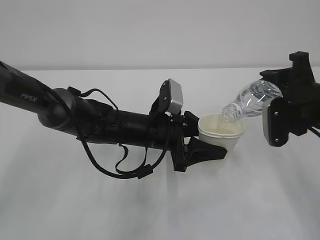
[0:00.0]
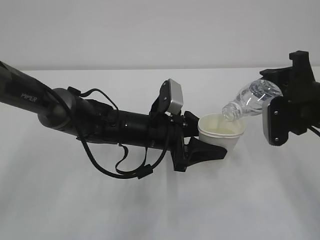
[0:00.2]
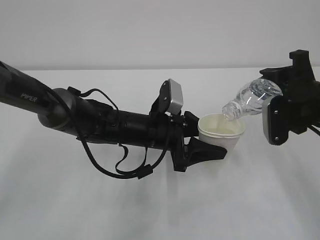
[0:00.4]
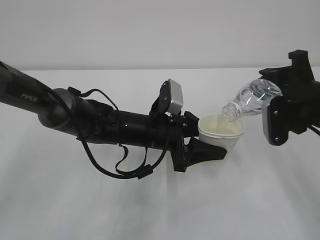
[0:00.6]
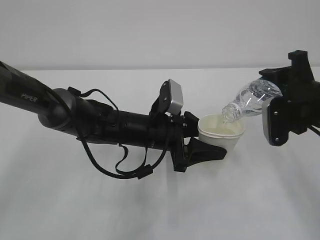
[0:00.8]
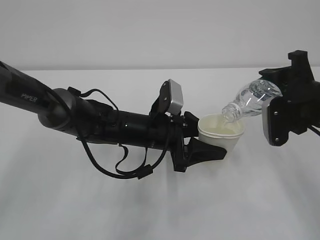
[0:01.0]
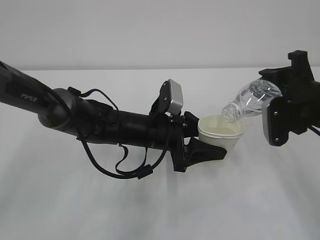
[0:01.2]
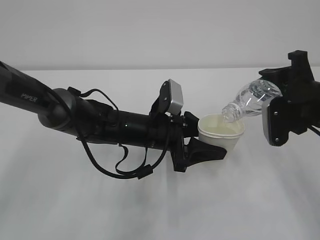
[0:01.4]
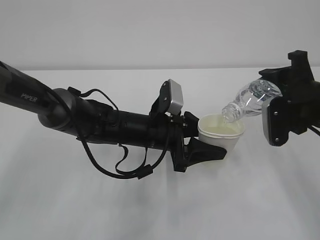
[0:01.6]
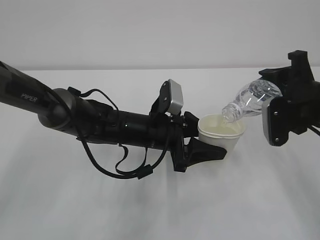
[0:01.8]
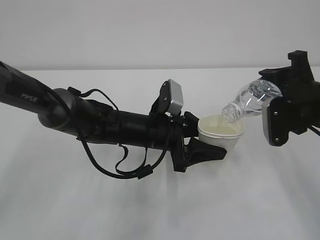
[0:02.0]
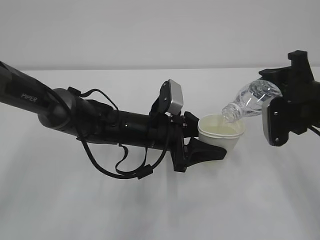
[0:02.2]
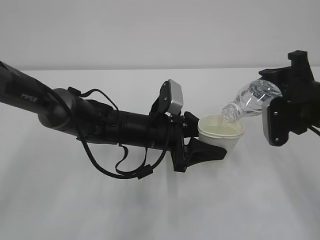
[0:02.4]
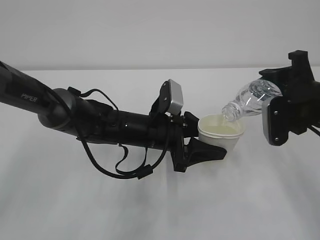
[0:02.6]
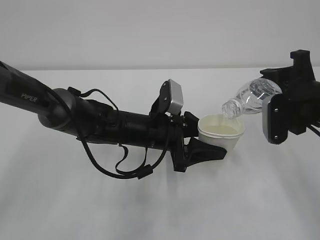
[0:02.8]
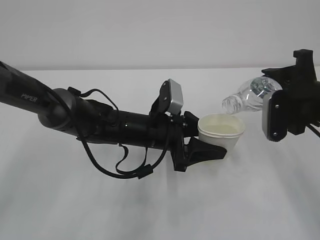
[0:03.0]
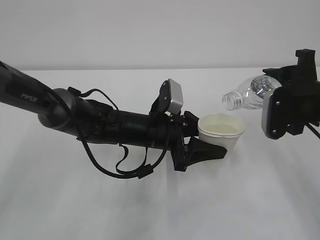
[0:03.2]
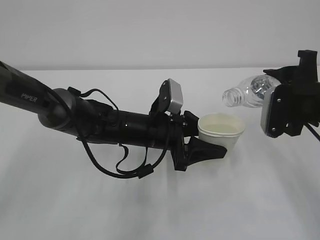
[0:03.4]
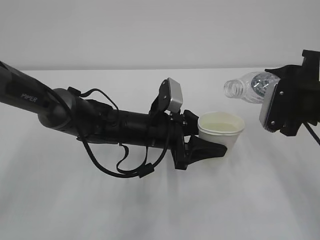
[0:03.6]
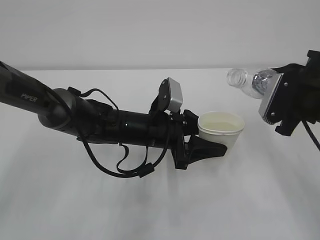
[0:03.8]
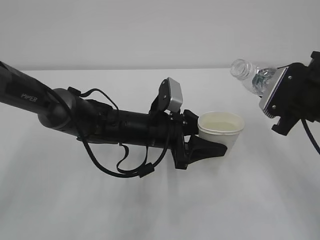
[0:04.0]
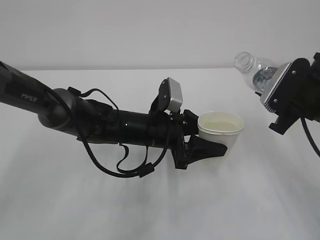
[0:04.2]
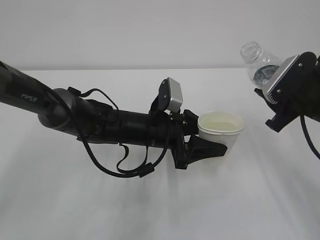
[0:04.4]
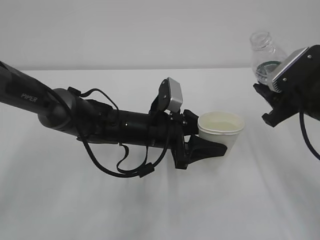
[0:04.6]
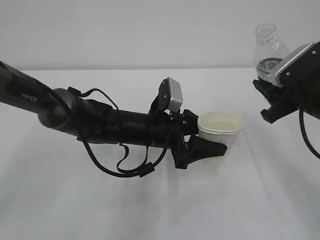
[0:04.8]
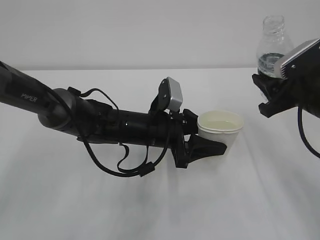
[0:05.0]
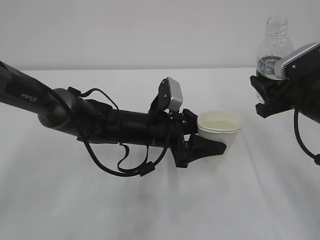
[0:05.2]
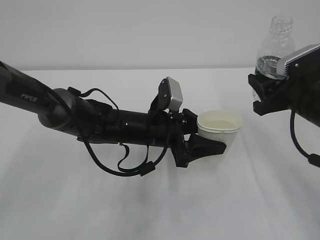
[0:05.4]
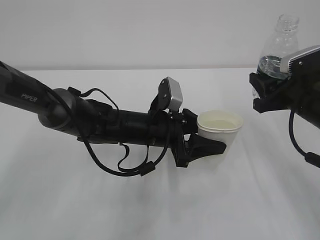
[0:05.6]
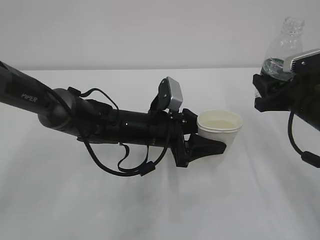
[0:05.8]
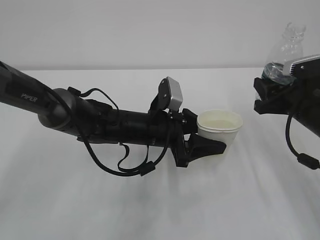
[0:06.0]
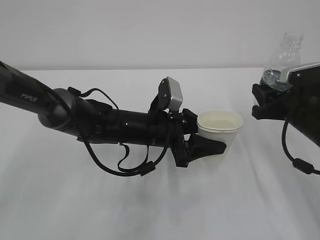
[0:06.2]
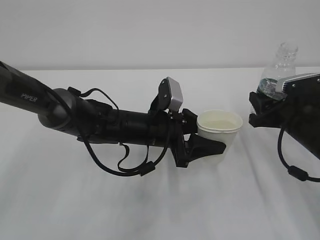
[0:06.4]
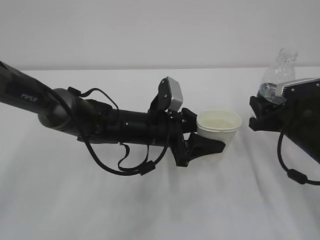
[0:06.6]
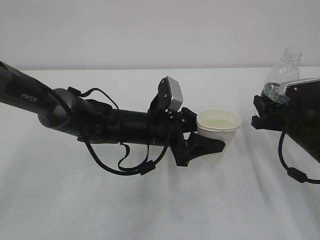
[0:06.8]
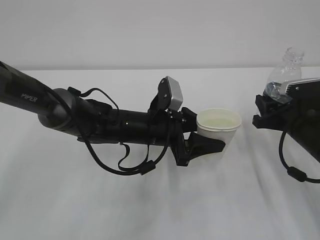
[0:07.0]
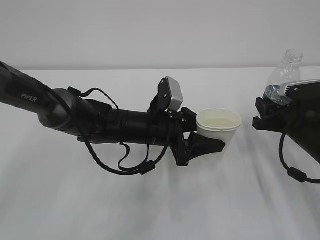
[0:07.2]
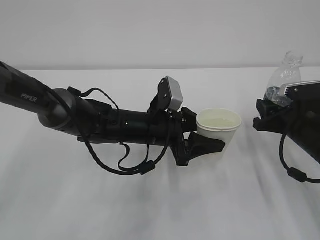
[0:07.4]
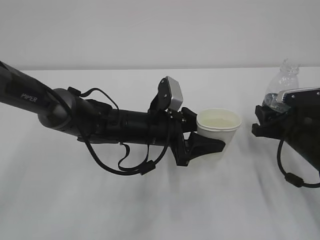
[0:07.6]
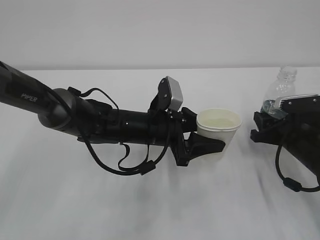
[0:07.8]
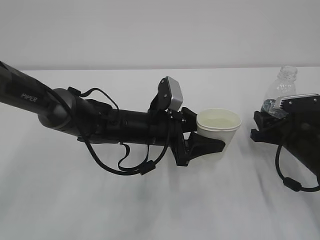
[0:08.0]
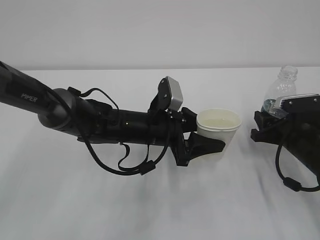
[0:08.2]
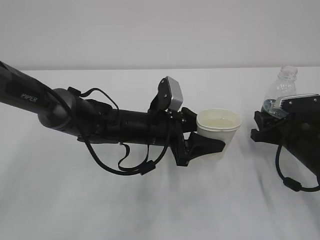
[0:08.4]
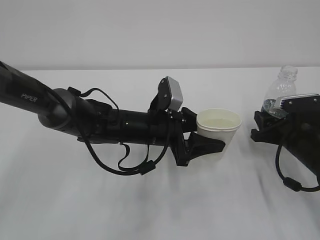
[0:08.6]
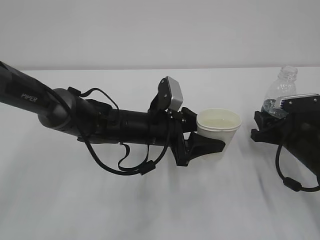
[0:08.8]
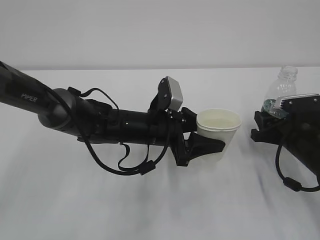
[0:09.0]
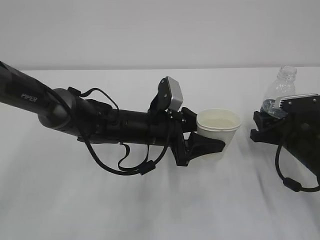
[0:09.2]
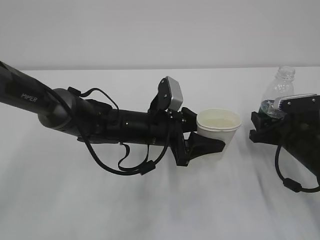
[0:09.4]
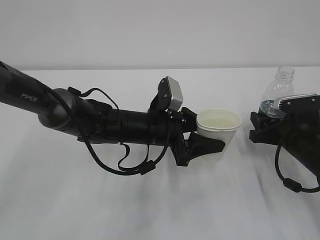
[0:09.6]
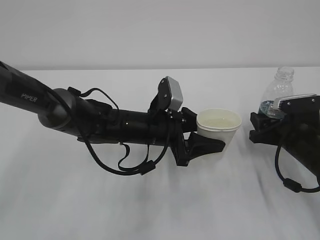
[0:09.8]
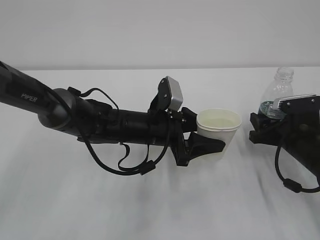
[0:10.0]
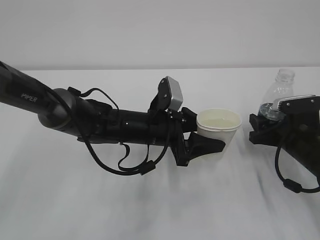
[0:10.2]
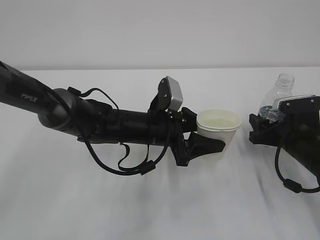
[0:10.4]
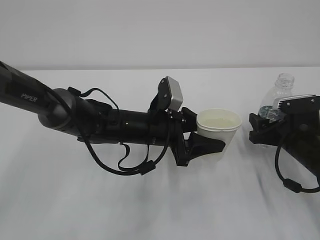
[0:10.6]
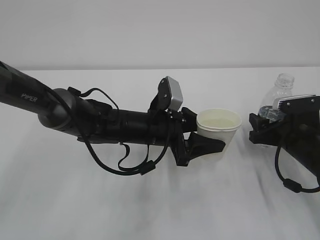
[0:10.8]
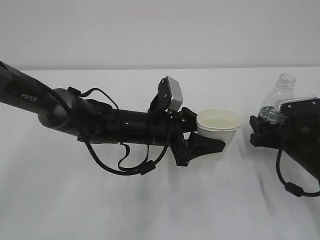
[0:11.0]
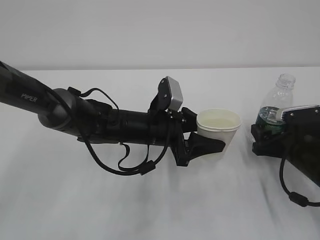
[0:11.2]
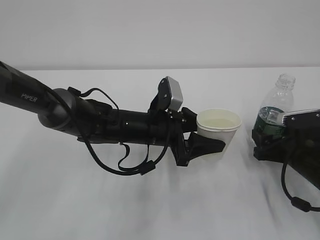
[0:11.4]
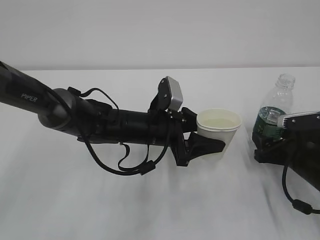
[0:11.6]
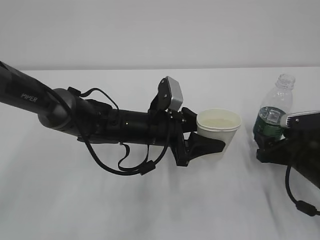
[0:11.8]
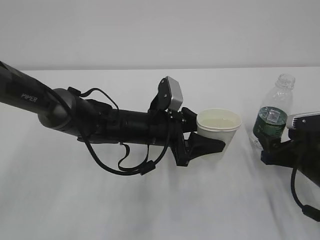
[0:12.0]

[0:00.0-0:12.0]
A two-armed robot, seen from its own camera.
0:00.0 to 0:01.6: Both grippers stay put.
0:01.6 to 0:03.0: The grippers make only small movements.
0:06.0 to 0:07.6: The right gripper shifts roughly 5 cm downward.
0:07.6 to 0:09.0: There are only small adjustments of the grippers.
0:09.0 to 0:10.4: The right gripper opens.
0:10.4 to 0:12.0: The grippers move only a little.

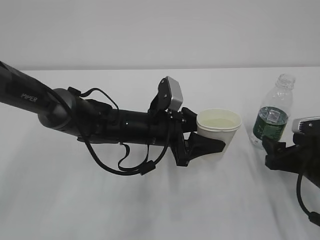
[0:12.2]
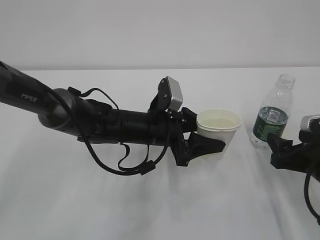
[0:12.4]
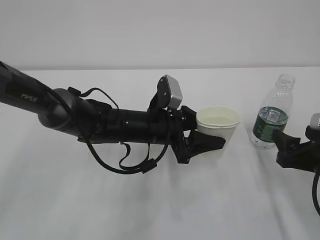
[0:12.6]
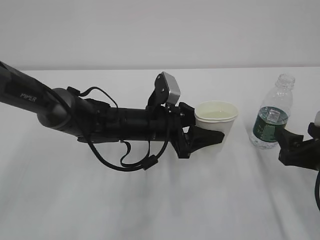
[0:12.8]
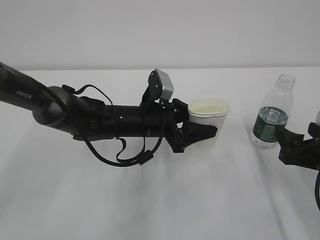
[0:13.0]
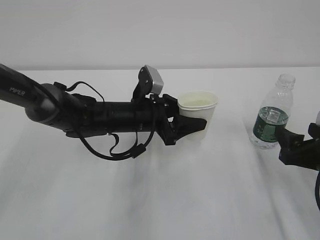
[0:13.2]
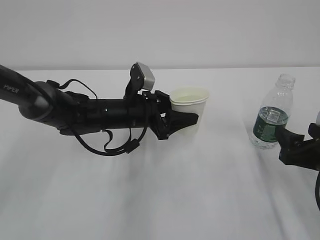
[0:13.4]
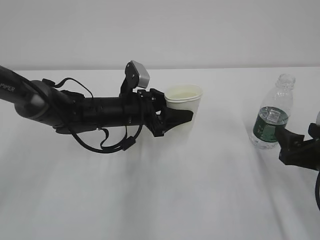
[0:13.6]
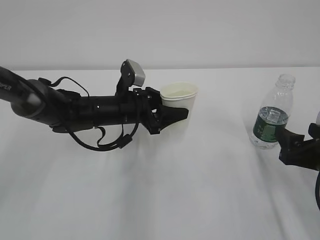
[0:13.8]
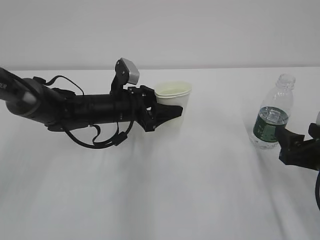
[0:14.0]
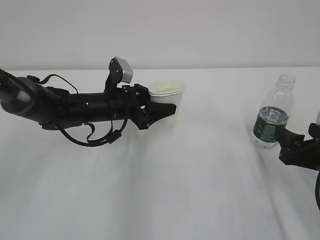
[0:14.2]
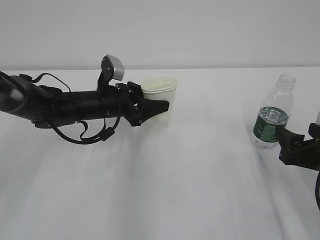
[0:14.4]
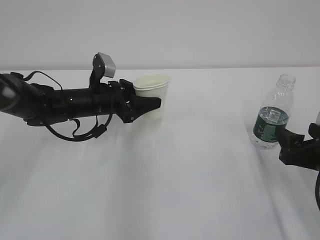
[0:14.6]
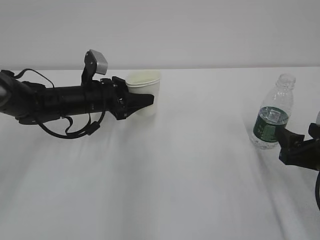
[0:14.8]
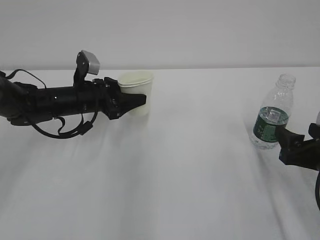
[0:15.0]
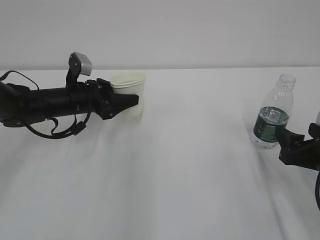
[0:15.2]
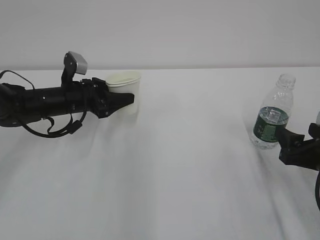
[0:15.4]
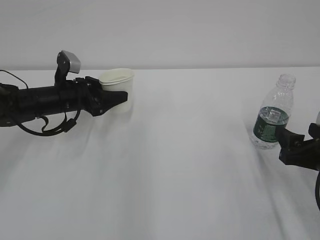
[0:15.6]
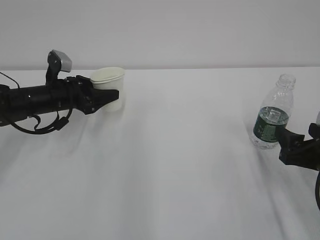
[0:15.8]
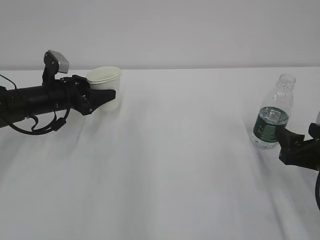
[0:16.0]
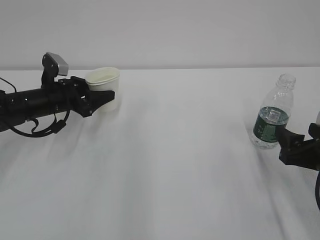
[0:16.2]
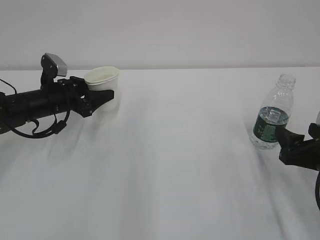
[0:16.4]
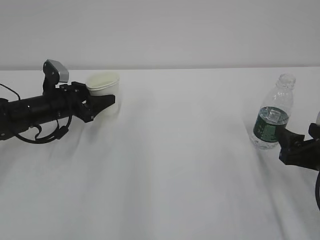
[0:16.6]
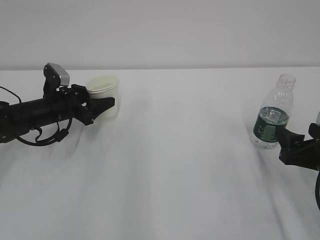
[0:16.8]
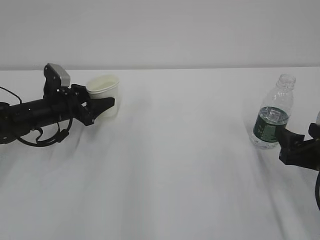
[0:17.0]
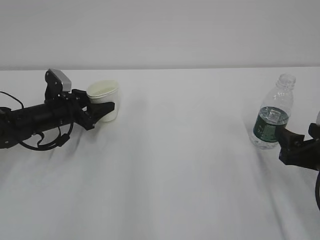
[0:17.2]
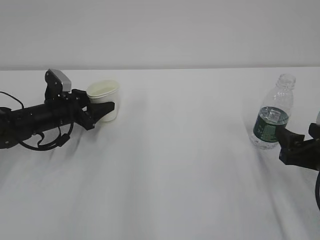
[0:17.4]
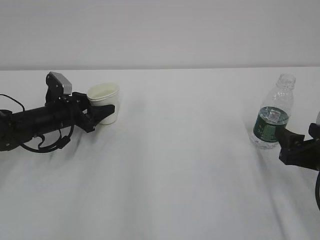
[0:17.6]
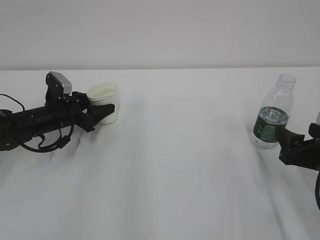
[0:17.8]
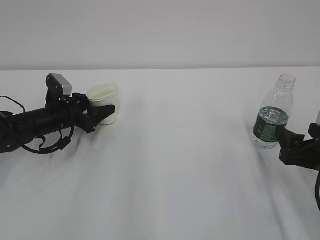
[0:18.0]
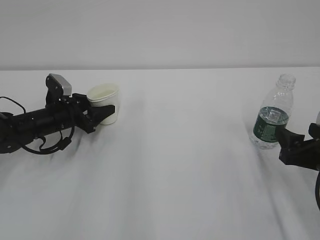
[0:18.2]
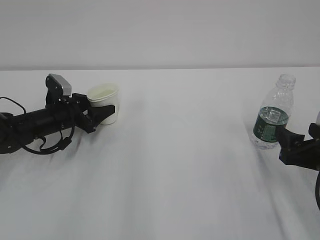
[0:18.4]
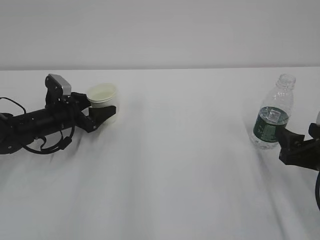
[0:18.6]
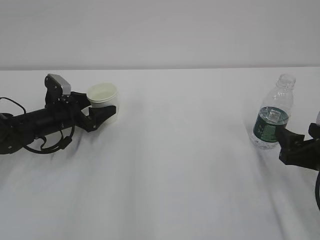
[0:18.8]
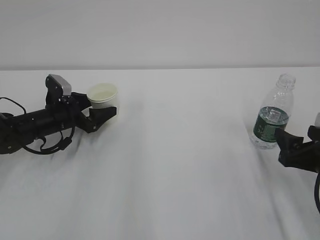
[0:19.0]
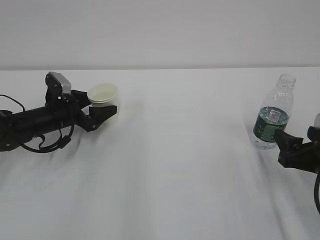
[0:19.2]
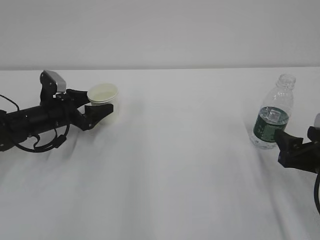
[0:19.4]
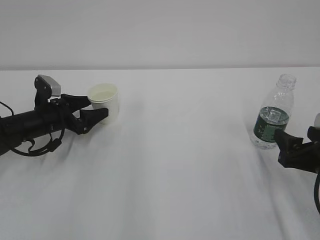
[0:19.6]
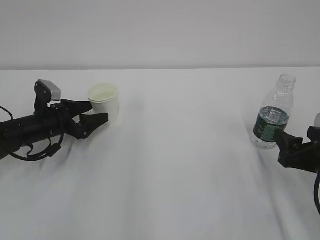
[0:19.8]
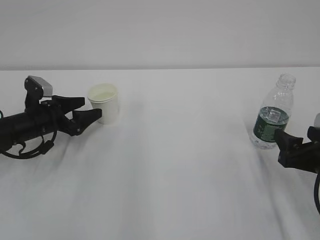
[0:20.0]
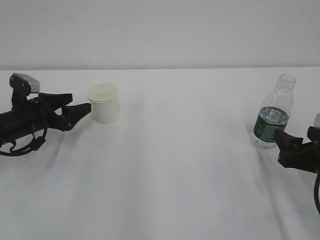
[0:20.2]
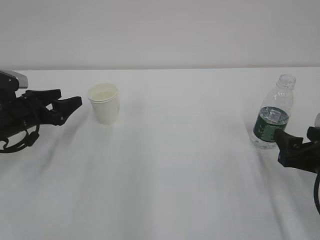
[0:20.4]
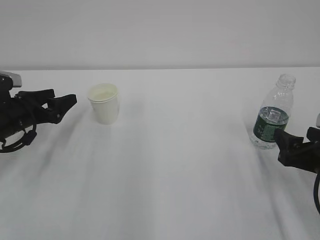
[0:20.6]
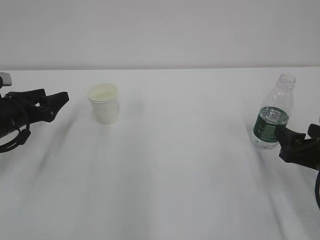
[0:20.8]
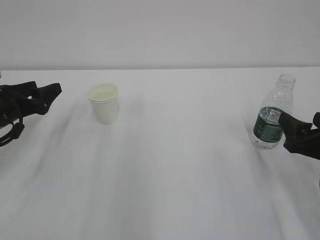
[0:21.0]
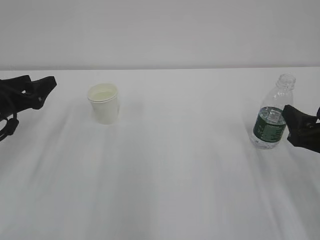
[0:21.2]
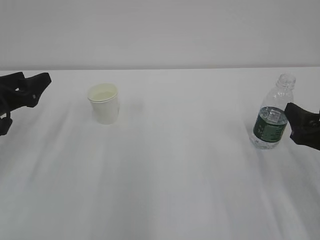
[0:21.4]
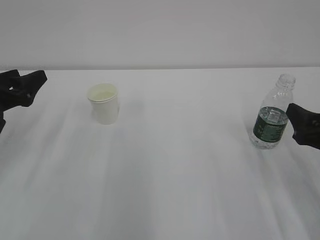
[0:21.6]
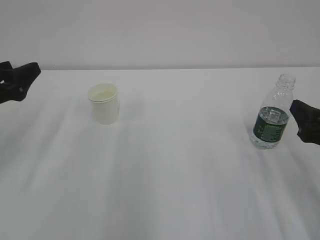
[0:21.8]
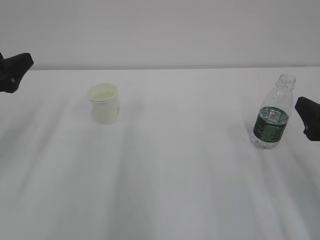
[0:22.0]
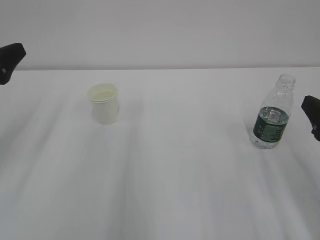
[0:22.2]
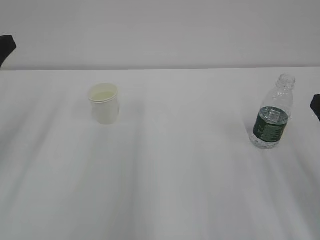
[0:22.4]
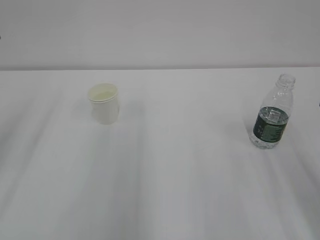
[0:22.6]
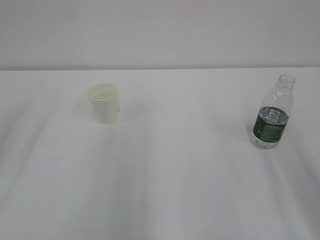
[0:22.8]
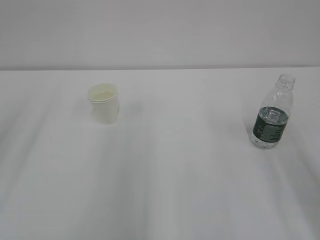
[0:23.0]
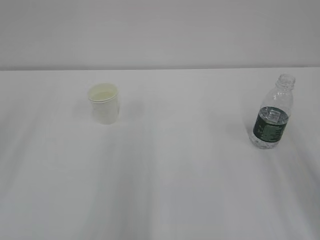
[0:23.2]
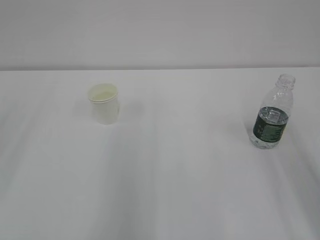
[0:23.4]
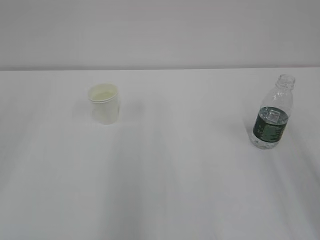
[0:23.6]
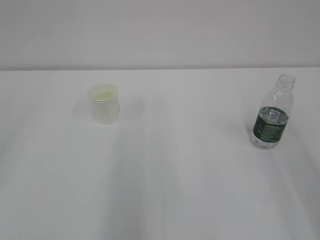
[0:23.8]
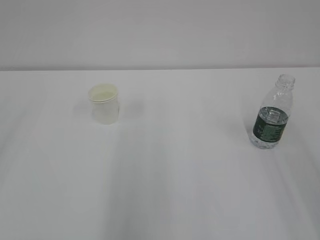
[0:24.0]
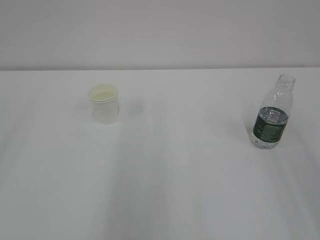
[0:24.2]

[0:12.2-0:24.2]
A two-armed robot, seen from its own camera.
0:12.2 to 0:13.8: The left gripper travels to the left by roughly 5 cm.
0:13.8 to 0:15.2: The left gripper is displaced to the left by approximately 10 cm.
0:15.2 to 0:16.6: The left gripper goes about 5 cm to the left.
0:16.6 to 0:18.2: The grippers make only small movements.
0:18.2 to 0:19.8: The left gripper opens its fingers.
0:19.8 to 0:21.2: The left gripper moves upward, backward and to the left, roughly 10 cm.
0:21.2 to 0:22.6: The left gripper shifts roughly 15 cm upward and backward. Meanwhile the right gripper heads upward and backward, covering about 10 cm.
